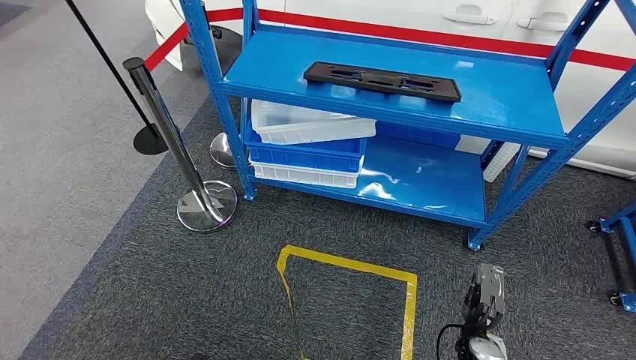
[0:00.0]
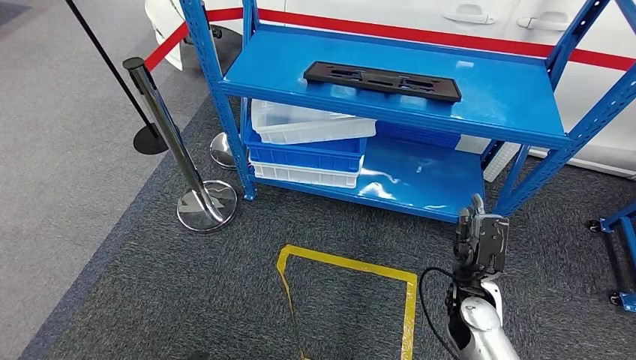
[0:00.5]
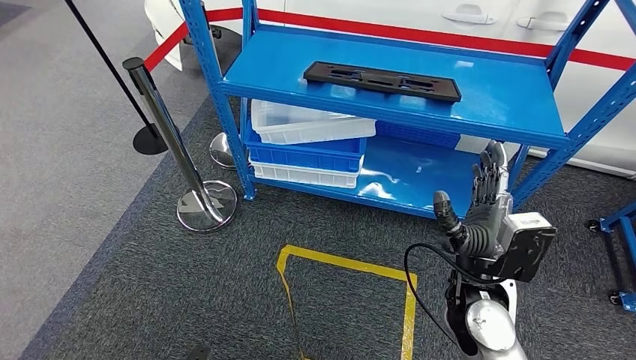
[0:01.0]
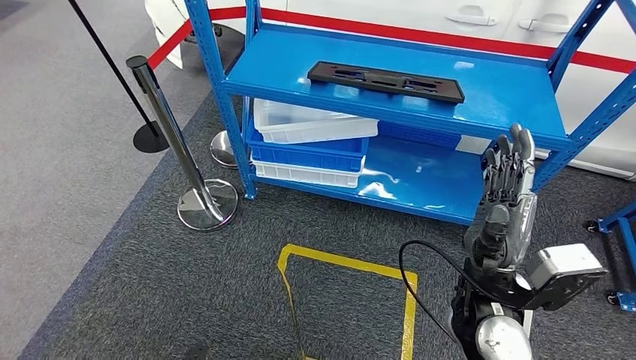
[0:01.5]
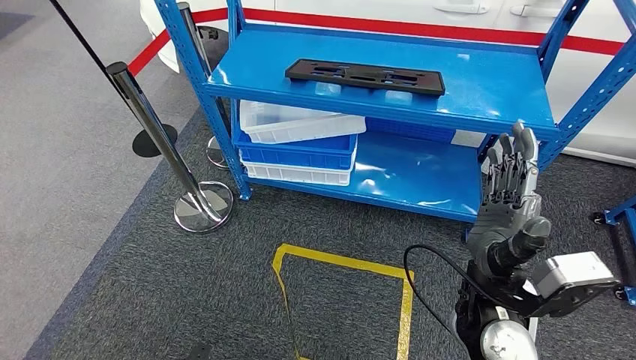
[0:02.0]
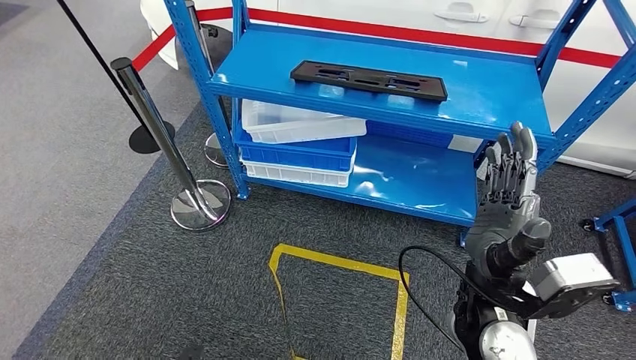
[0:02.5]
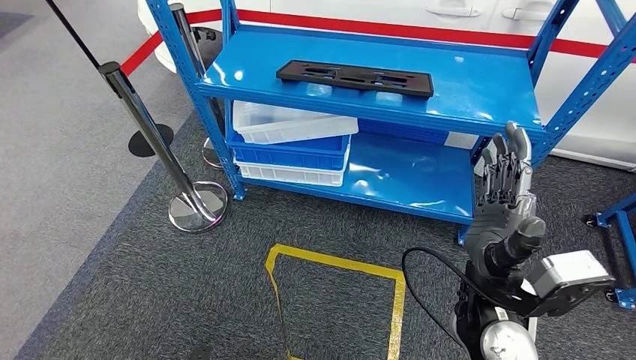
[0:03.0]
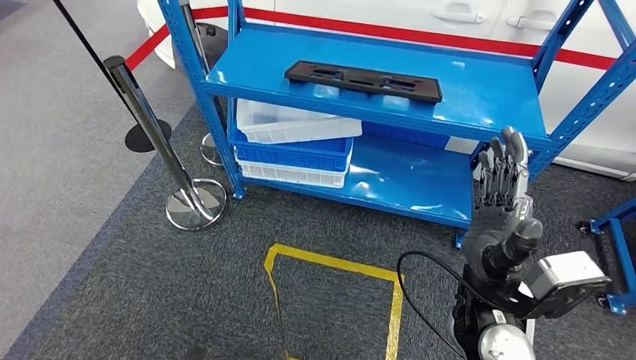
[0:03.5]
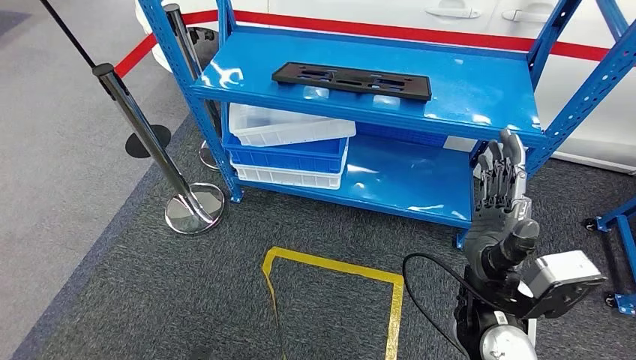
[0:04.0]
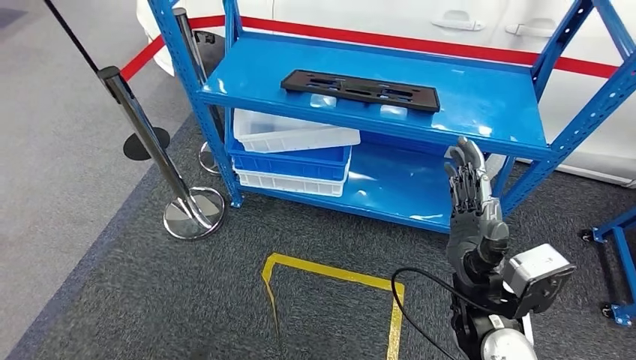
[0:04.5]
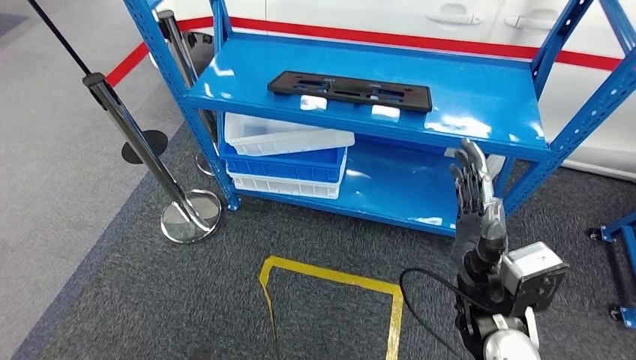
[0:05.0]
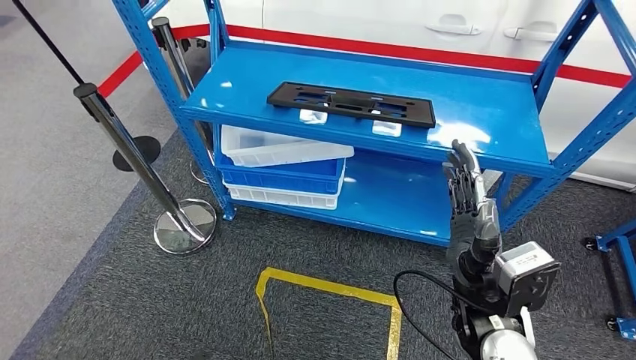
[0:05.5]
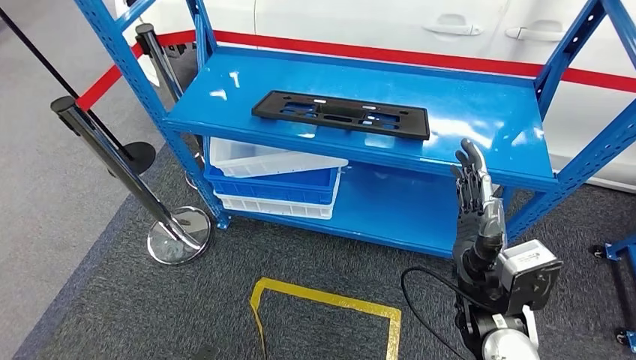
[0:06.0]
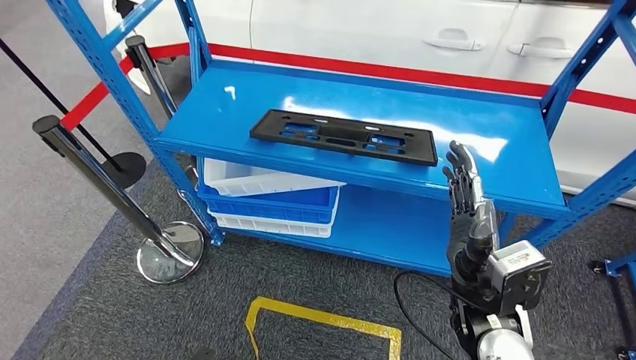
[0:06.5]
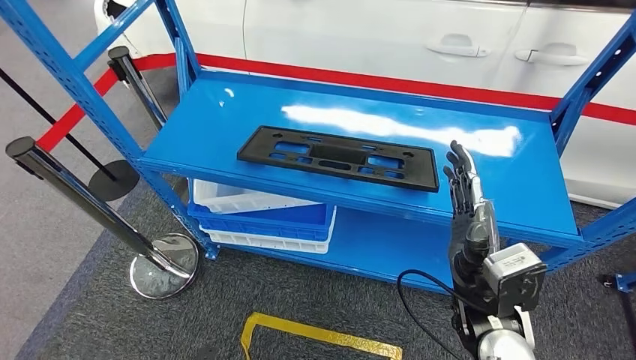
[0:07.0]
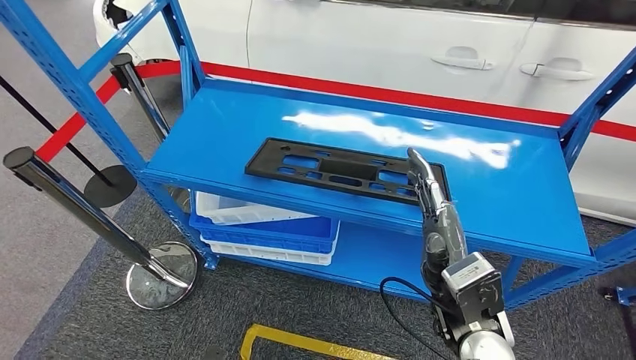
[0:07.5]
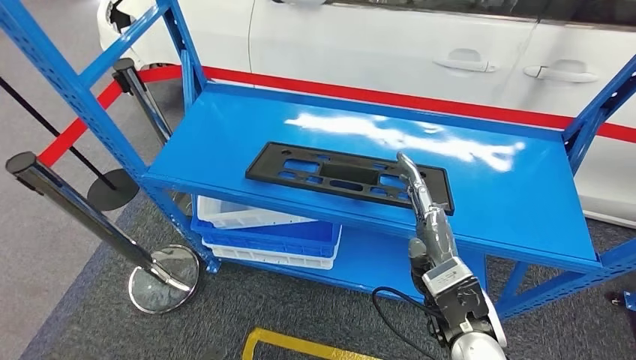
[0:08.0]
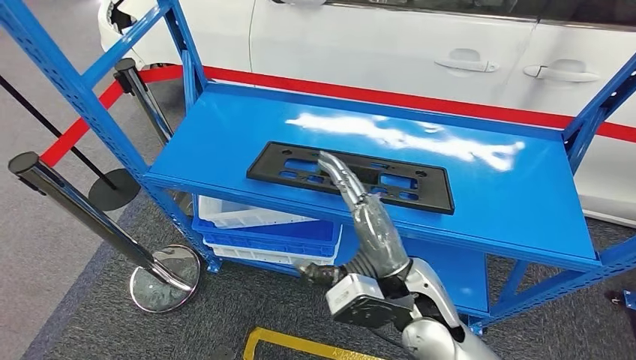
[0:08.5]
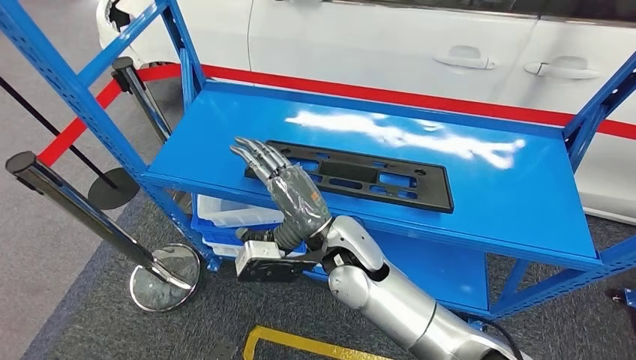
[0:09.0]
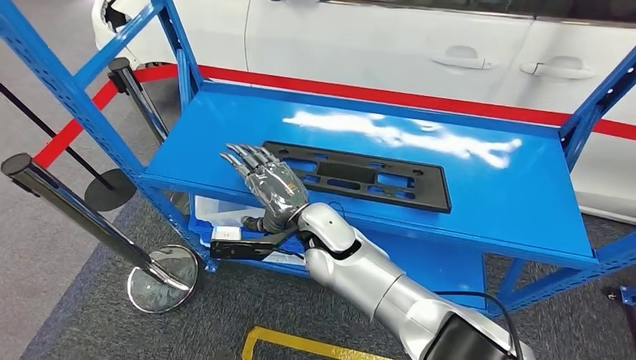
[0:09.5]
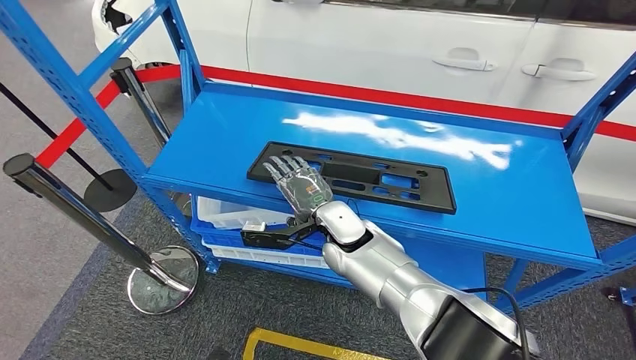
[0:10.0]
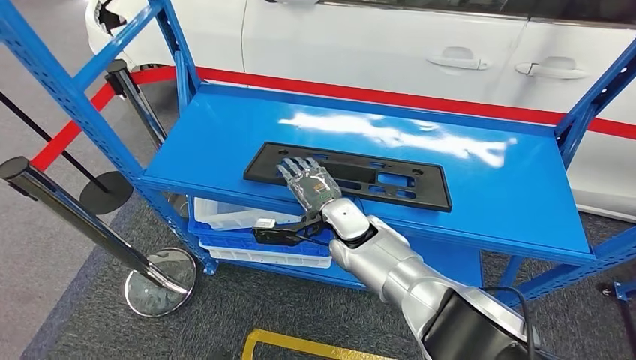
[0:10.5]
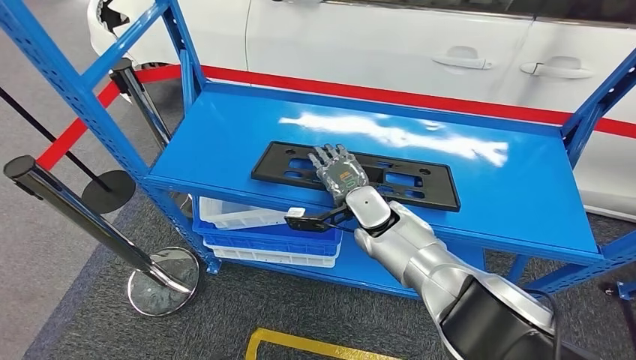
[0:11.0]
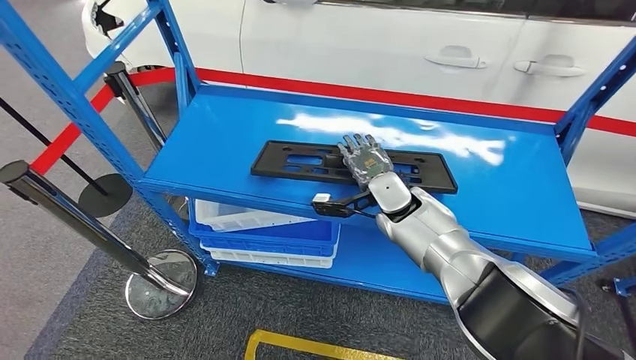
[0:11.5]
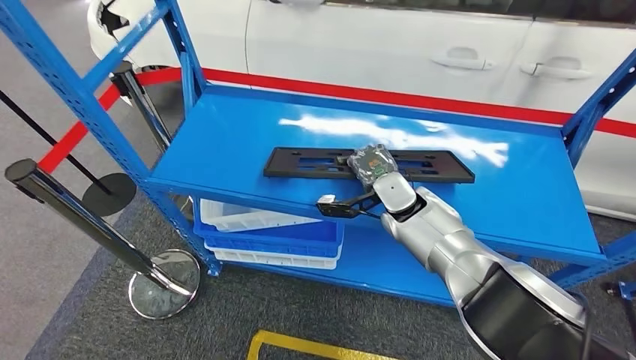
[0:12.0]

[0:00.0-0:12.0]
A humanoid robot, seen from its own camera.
0:08.0 to 0:10.0: The right hand heads forward and to the left, covering roughly 20 cm.

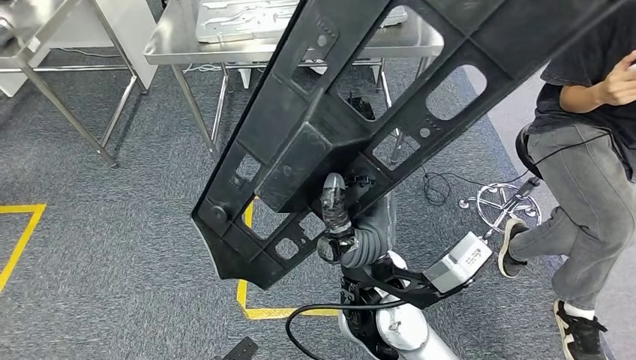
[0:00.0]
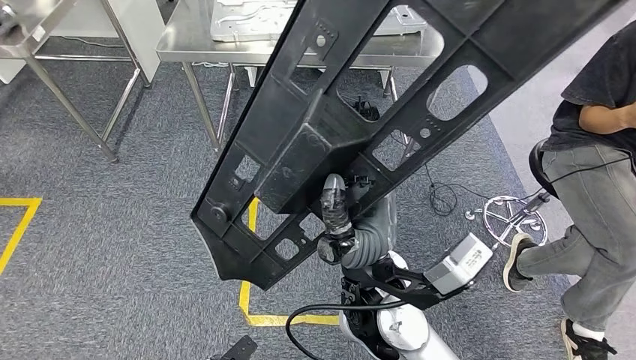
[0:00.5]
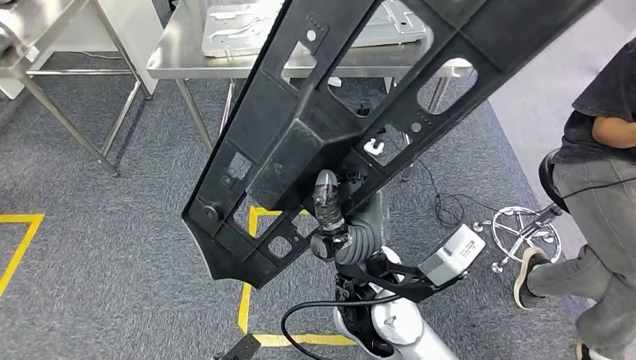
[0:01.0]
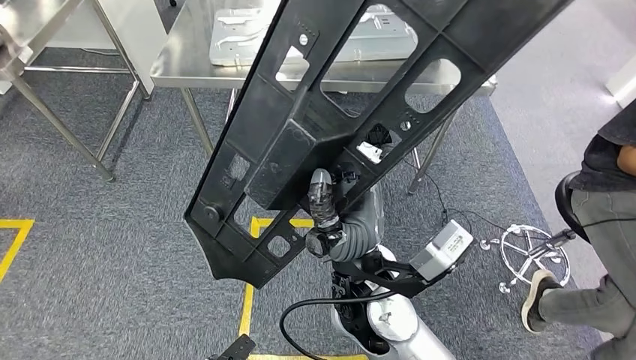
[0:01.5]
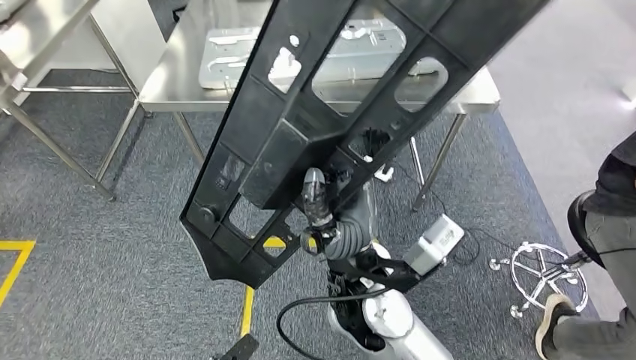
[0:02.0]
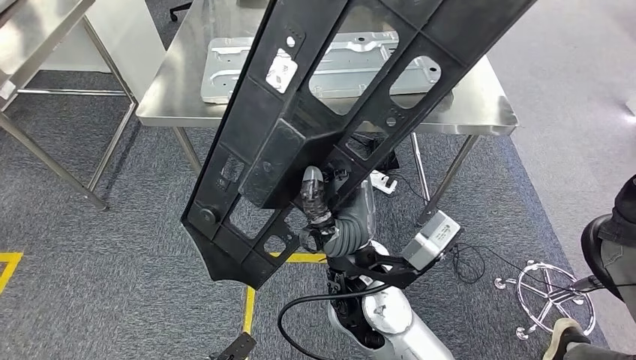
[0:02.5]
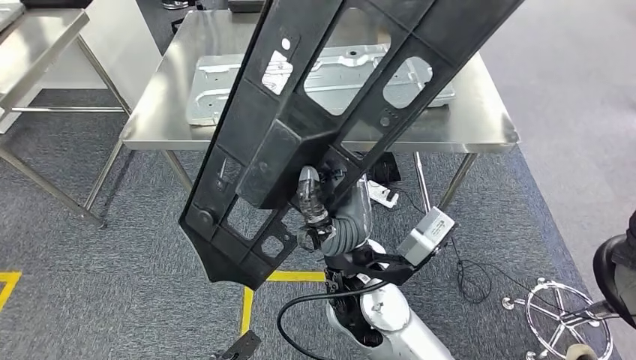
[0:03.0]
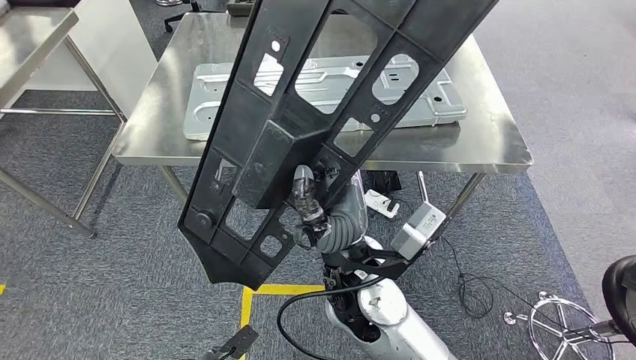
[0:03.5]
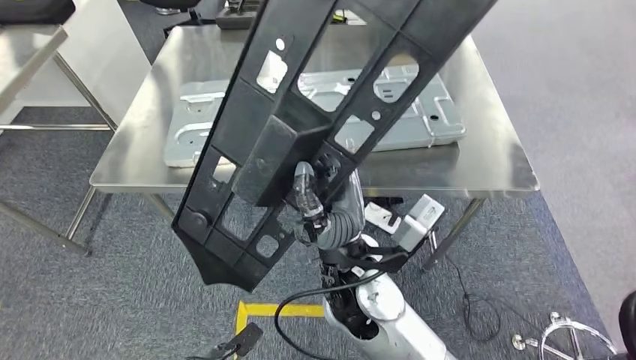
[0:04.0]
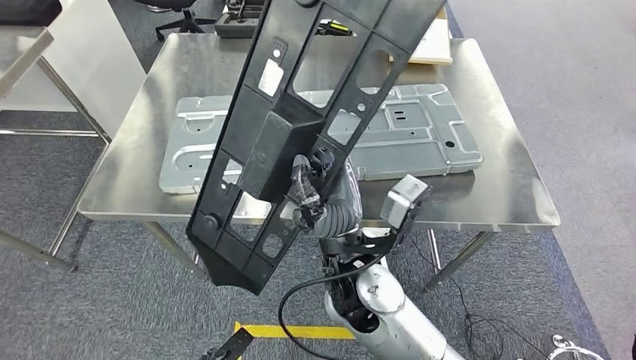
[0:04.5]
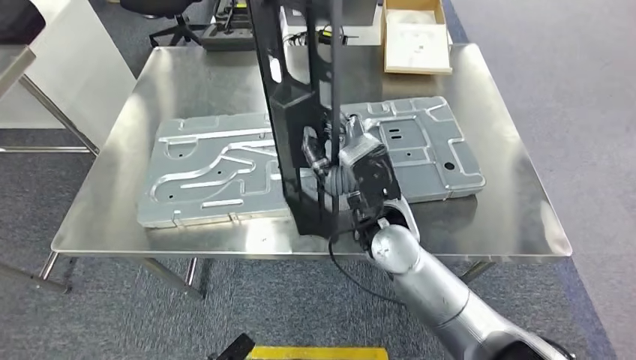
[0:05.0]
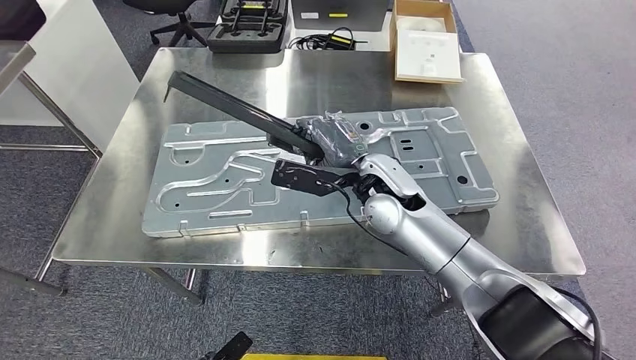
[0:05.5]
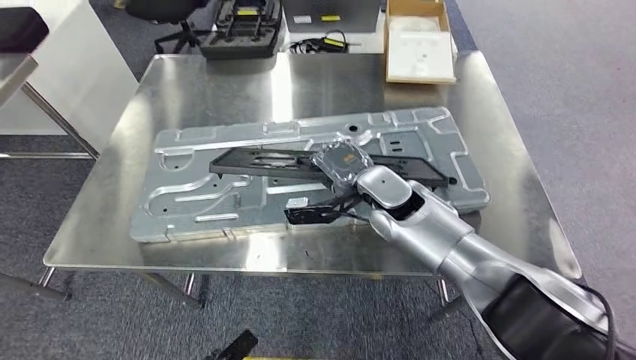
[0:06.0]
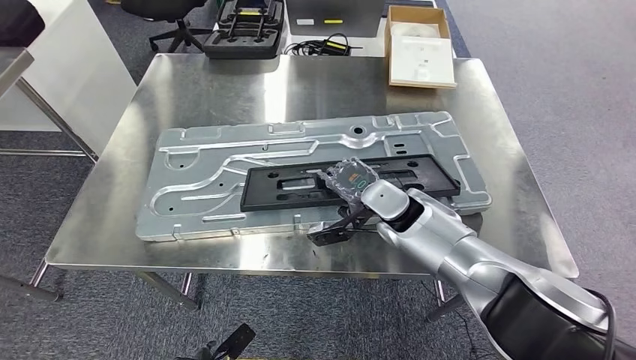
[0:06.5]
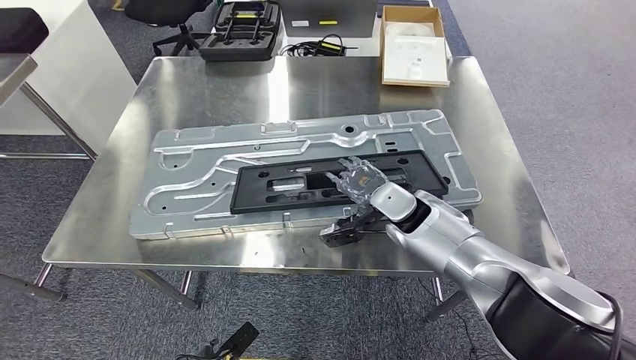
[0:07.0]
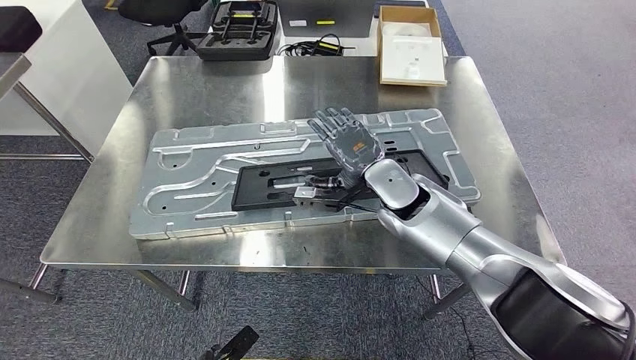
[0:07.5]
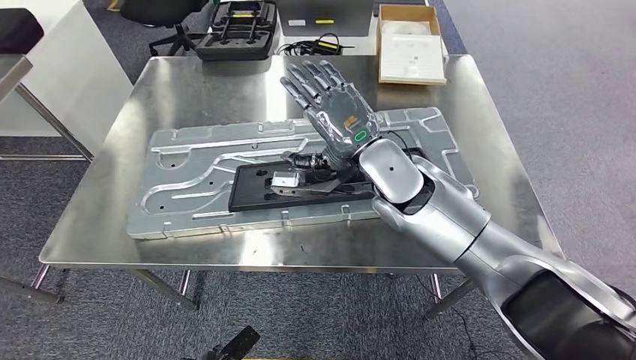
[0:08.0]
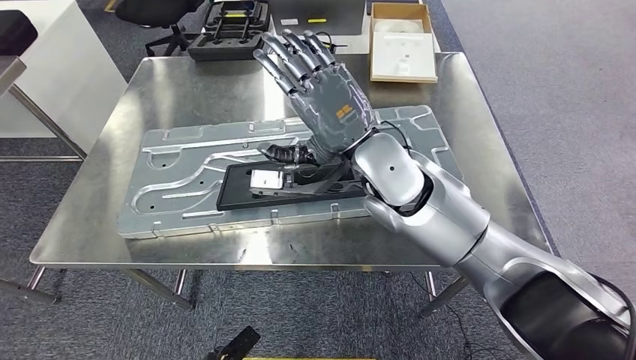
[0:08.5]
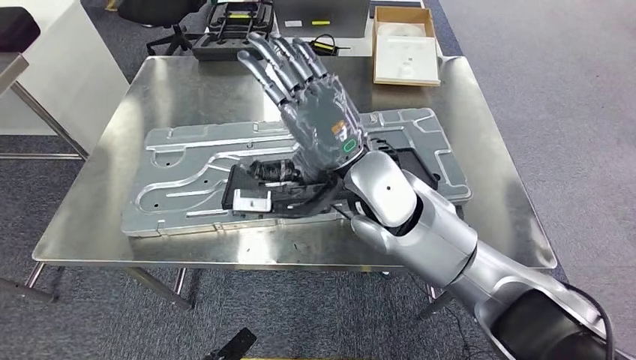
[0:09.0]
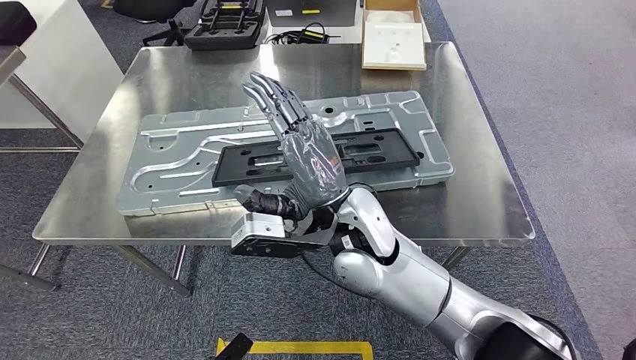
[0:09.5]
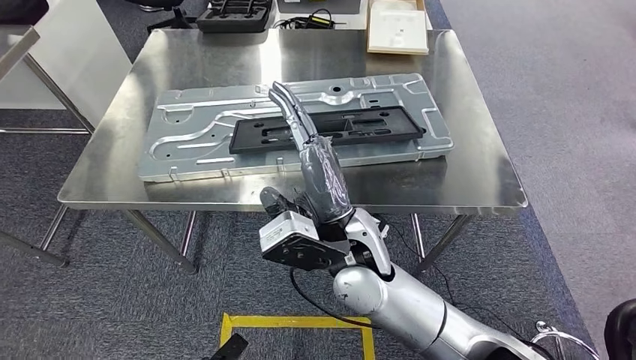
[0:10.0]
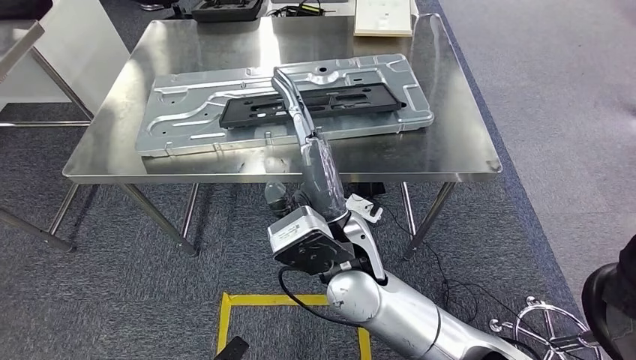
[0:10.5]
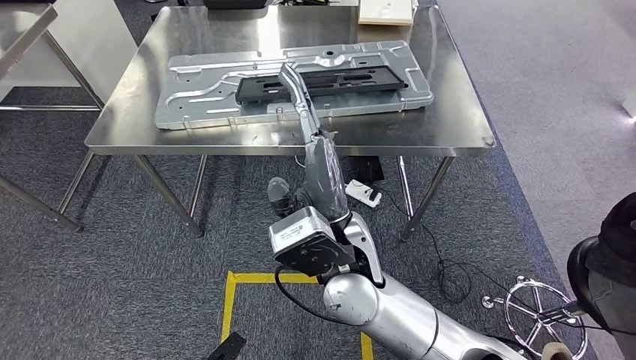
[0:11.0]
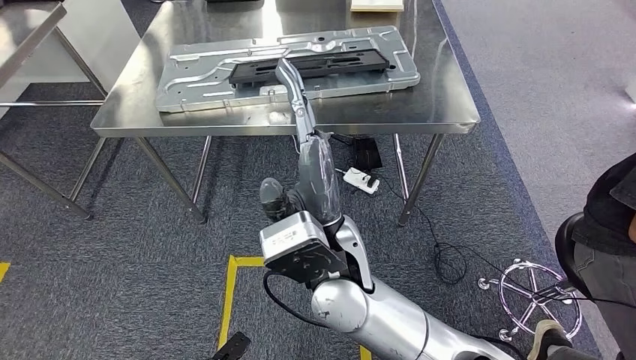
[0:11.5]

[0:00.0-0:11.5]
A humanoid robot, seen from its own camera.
Step, 0:00.5 to 0:07.0: Insert the large material into the corresponding slot on the workbench.
